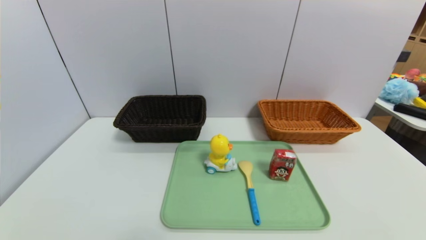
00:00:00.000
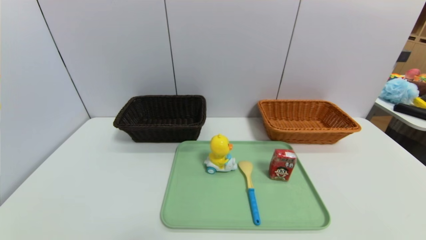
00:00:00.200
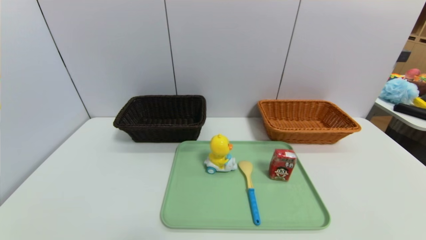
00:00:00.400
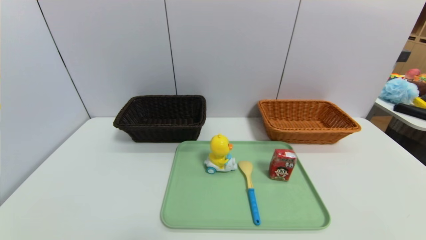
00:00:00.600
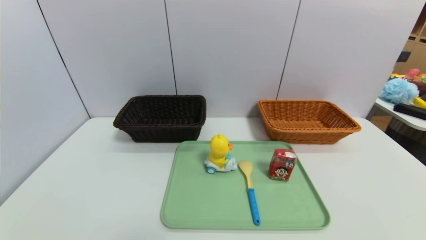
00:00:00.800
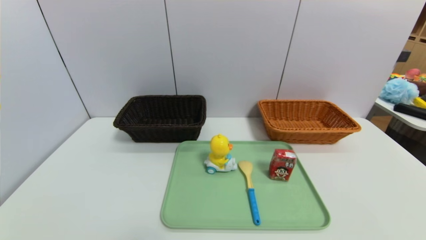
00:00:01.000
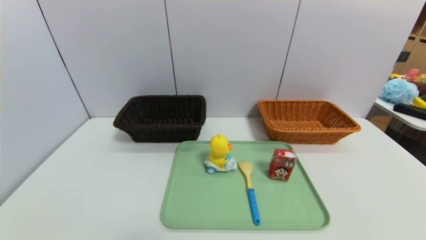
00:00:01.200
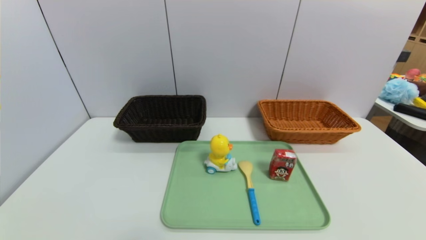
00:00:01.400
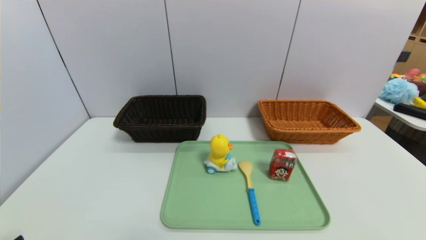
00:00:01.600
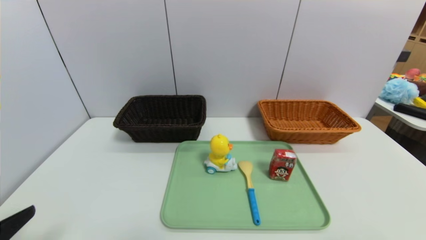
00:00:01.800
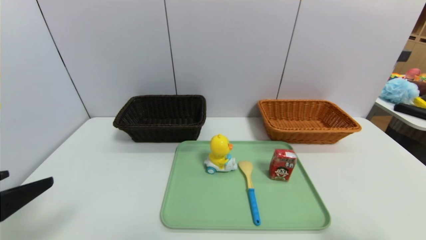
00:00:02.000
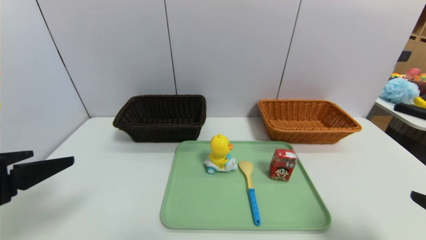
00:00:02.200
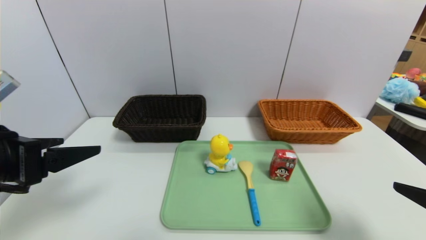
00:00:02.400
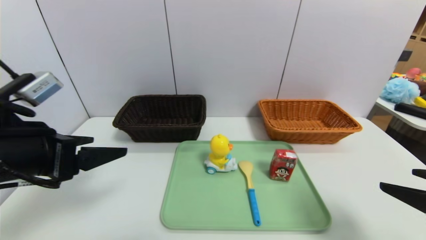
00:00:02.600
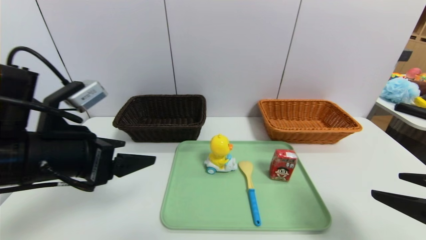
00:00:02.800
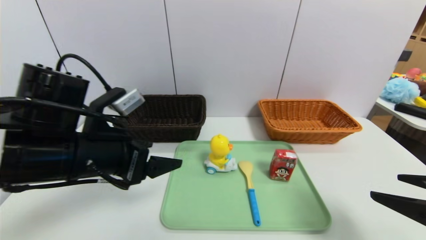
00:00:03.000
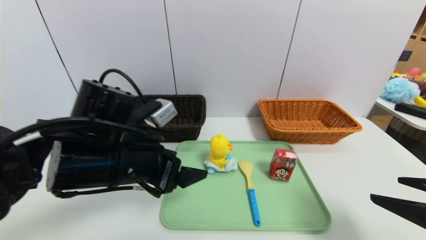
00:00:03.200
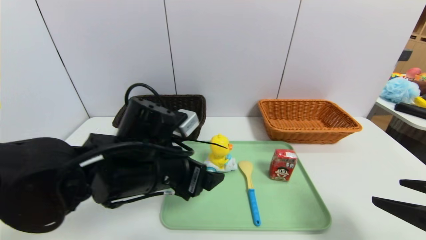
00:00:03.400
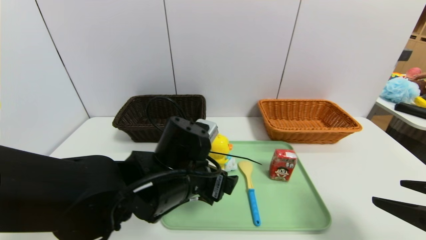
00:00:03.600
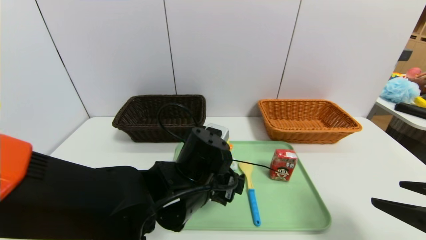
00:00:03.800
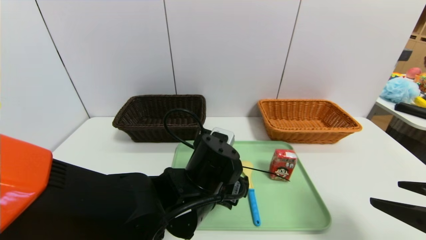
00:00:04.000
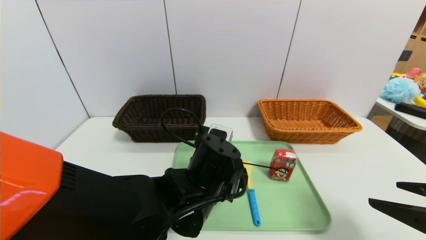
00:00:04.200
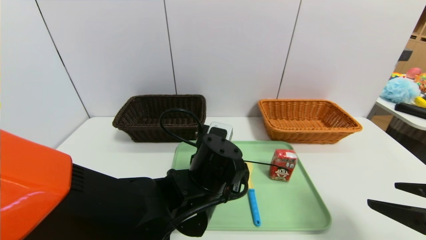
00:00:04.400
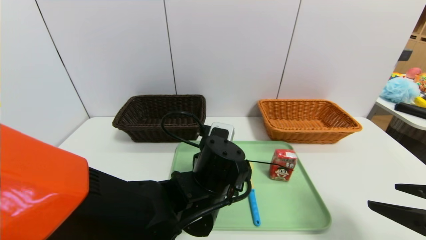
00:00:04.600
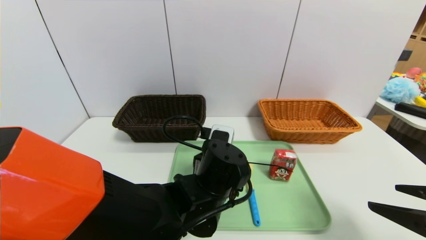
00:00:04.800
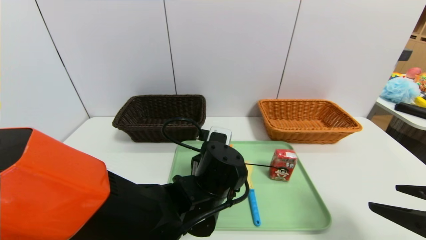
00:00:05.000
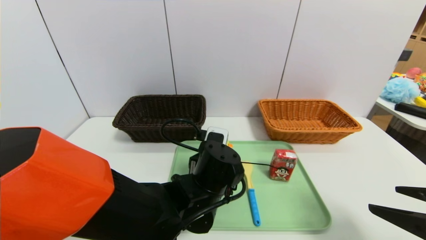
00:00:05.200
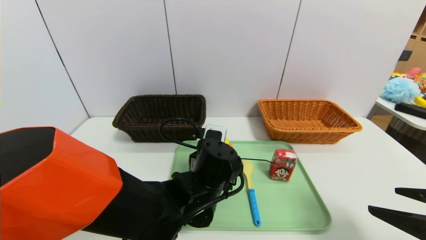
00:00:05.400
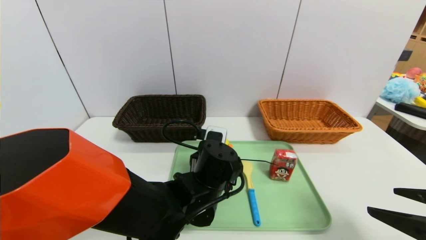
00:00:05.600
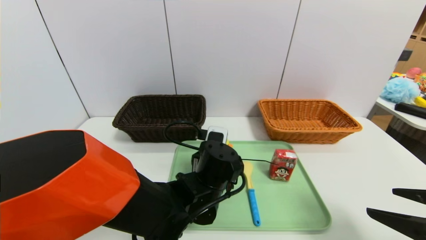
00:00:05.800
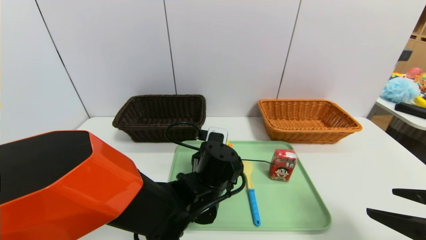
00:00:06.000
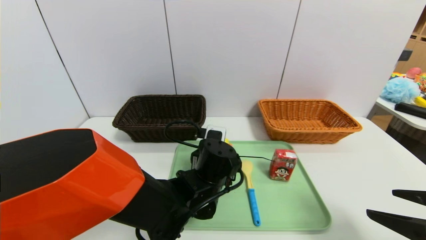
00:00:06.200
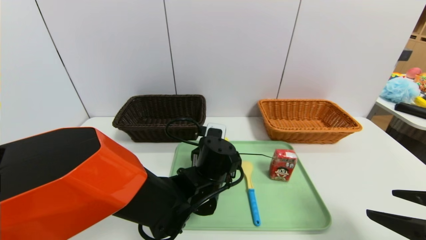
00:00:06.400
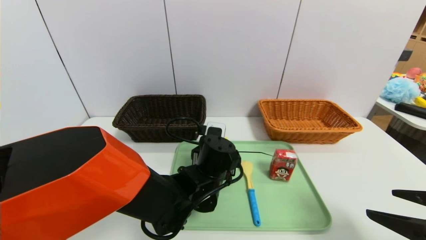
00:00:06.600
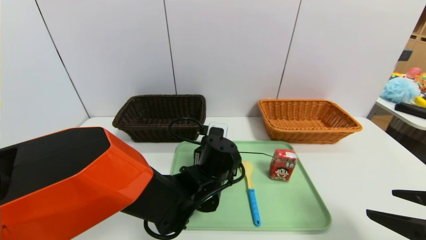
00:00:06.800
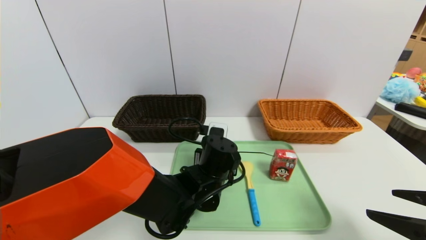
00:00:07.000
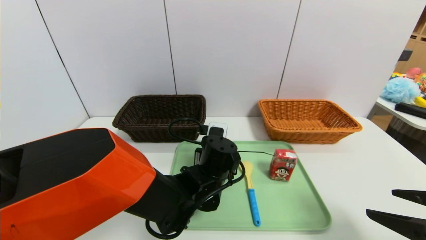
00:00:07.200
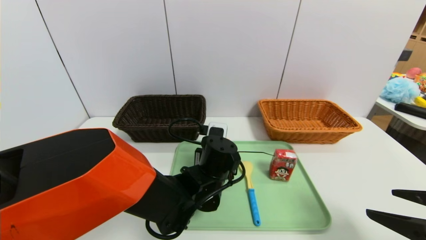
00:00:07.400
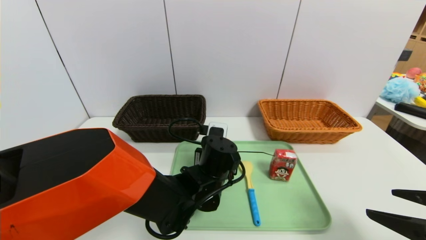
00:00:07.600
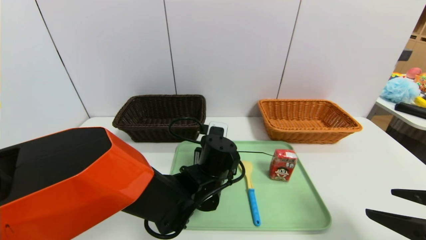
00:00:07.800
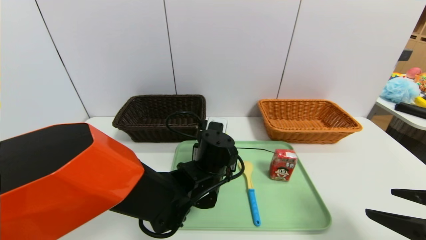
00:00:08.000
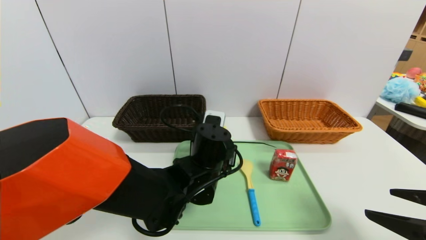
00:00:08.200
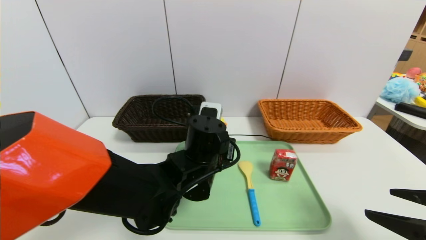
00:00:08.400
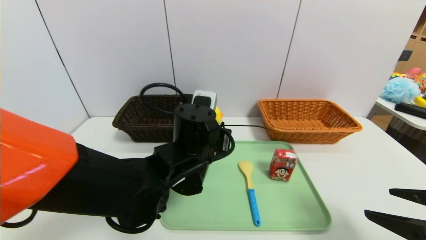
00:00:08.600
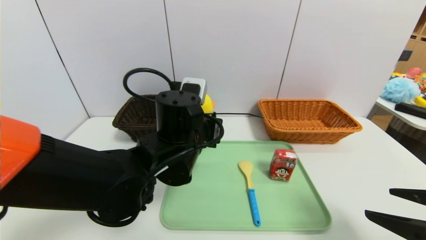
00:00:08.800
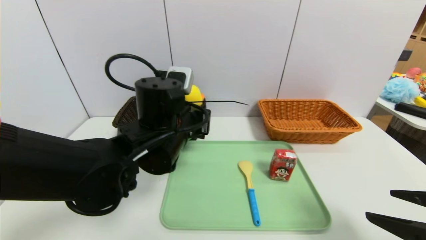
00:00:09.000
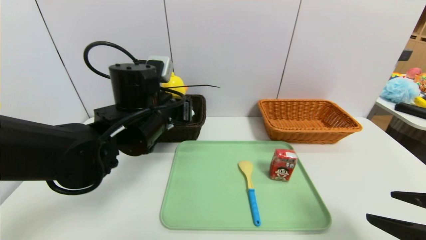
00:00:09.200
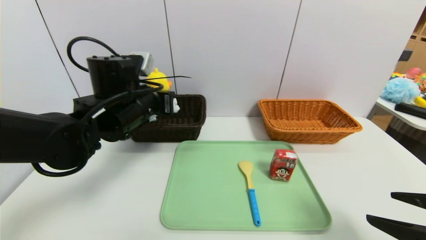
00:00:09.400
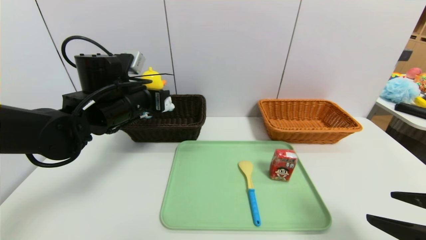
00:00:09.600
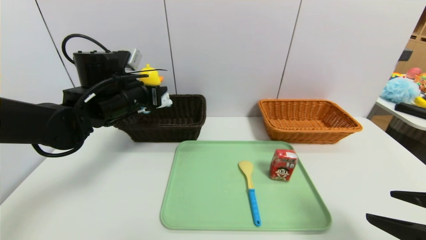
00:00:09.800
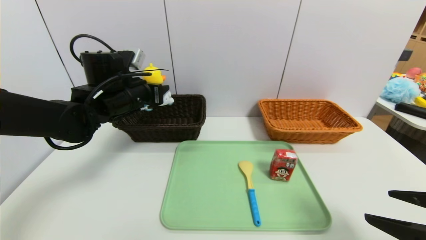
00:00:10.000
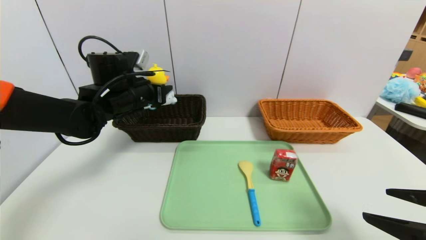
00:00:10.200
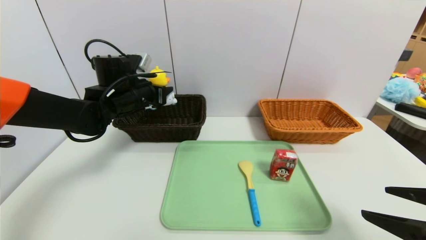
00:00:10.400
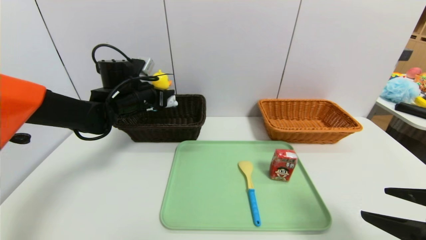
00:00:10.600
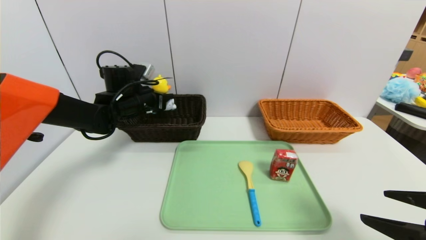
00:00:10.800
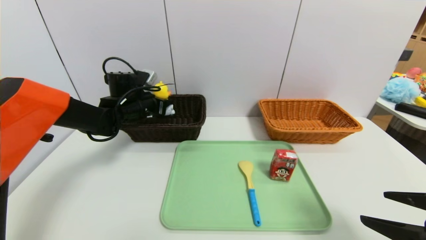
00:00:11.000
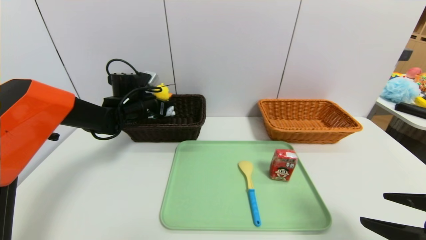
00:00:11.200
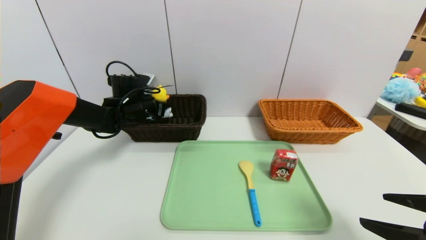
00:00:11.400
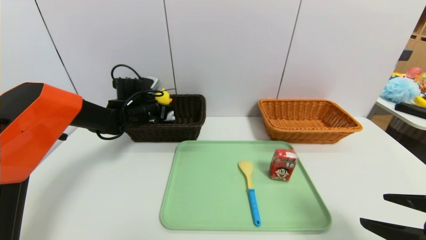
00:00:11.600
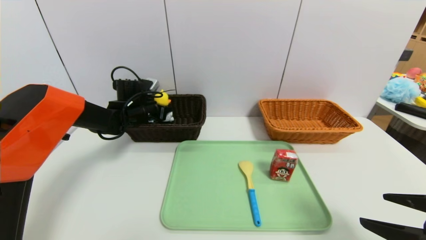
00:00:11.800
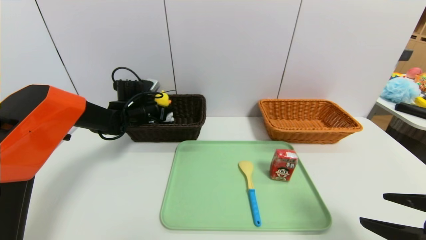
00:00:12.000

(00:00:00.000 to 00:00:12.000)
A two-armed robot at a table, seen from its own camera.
Task of the whole recording: place the food in the right basket with the right gripper, and place the non food items in the left basket with the left gripper.
00:00:01.600 - 00:00:03.000: The left gripper is displaced forward and to the right by approximately 25 cm, while the right gripper shifts about 10 cm forward.
00:00:03.000 - 00:00:04.400: The left gripper goes some 20 cm to the right and downward.
00:00:04.400 - 00:00:06.000: The left gripper moves approximately 5 cm.
00:00:06.000 - 00:00:07.600: The left gripper closes up.
00:00:07.600 - 00:00:09.000: The left gripper travels upward and to the left by about 15 cm.
00:00:09.000 - 00:00:10.400: The left gripper heads forward and to the left, covering roughly 20 cm.
00:00:10.400 - 00:00:12.000: The left gripper travels downward and forward by roughly 10 cm.

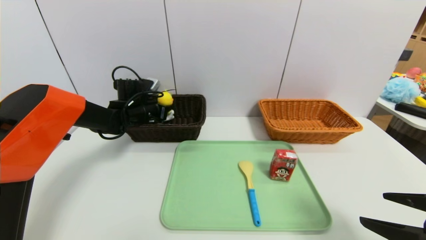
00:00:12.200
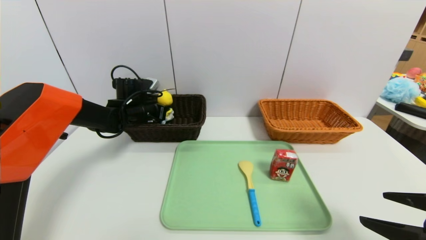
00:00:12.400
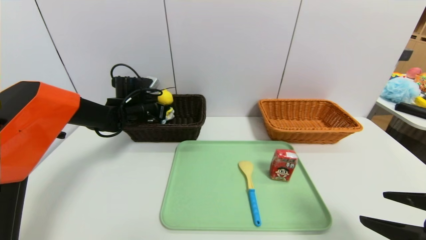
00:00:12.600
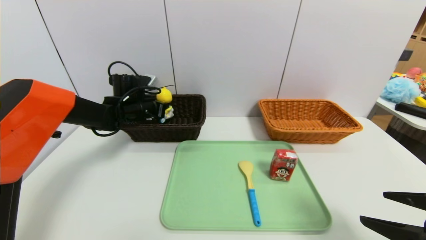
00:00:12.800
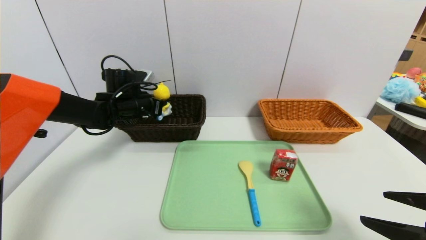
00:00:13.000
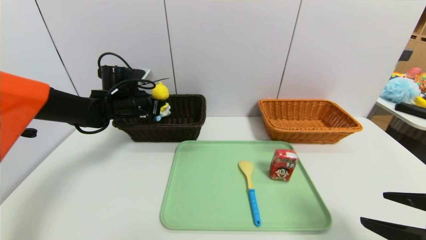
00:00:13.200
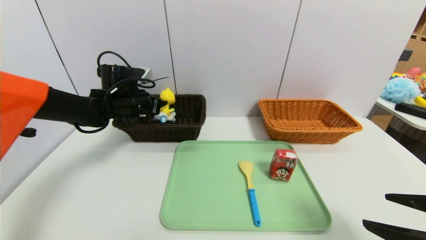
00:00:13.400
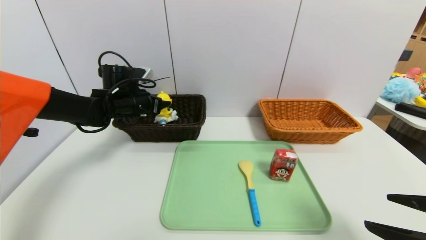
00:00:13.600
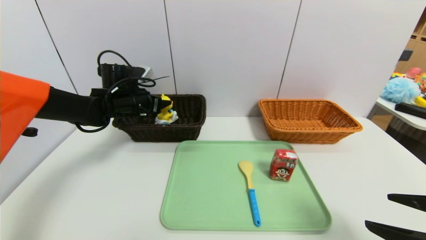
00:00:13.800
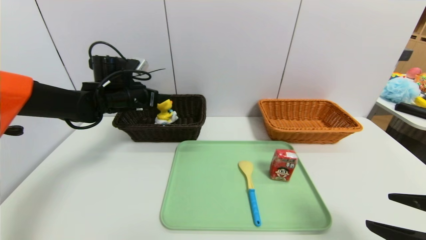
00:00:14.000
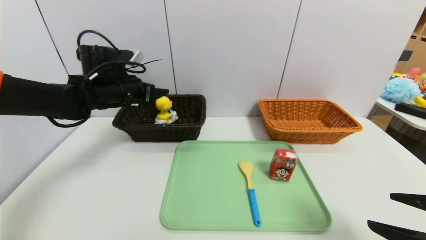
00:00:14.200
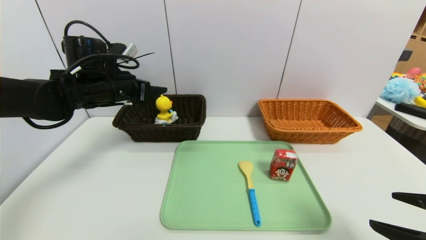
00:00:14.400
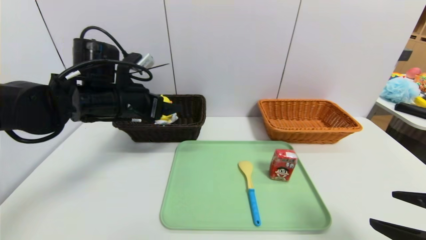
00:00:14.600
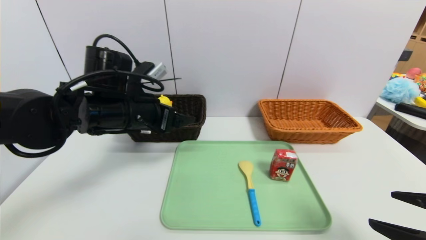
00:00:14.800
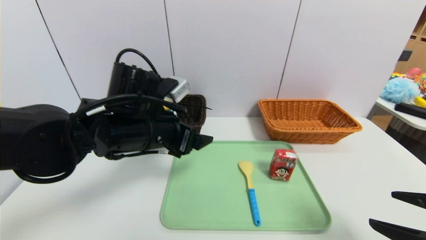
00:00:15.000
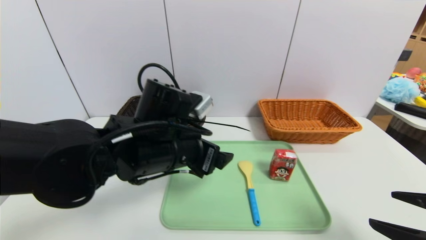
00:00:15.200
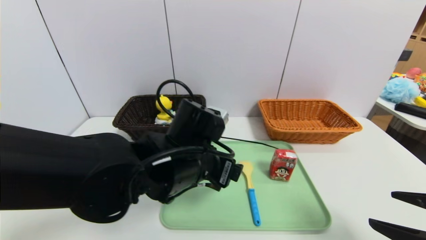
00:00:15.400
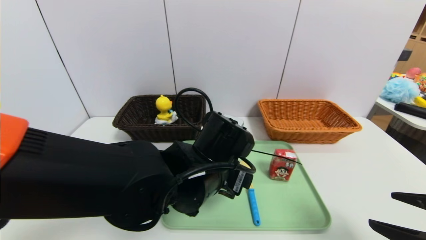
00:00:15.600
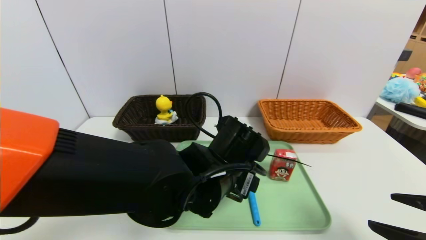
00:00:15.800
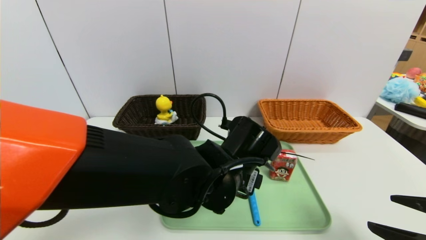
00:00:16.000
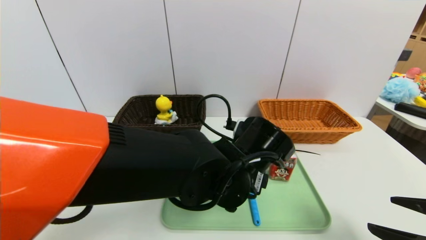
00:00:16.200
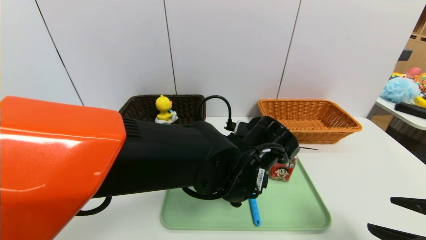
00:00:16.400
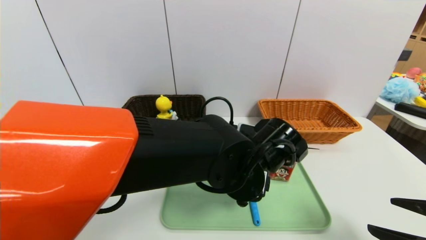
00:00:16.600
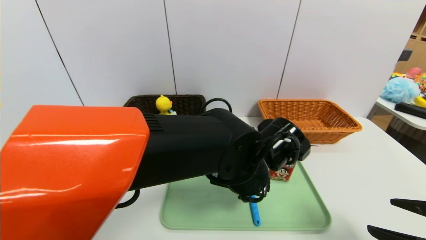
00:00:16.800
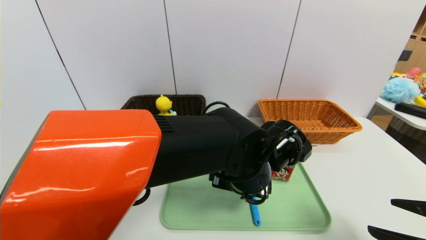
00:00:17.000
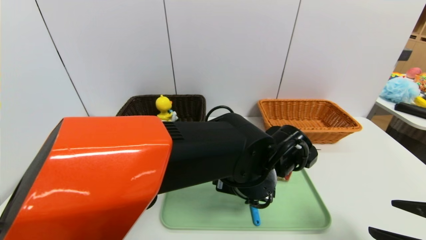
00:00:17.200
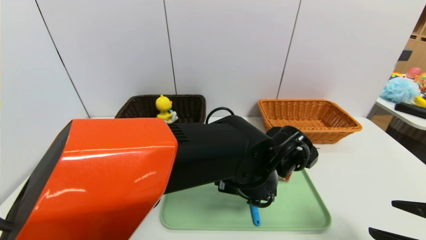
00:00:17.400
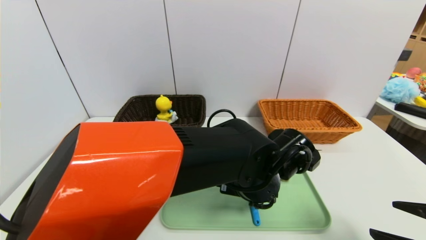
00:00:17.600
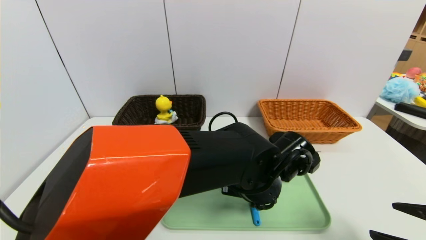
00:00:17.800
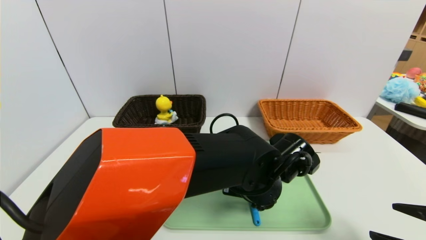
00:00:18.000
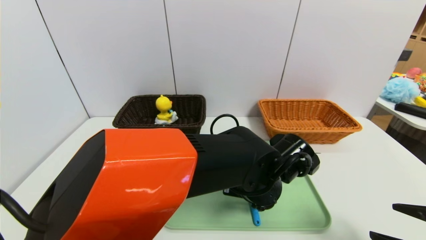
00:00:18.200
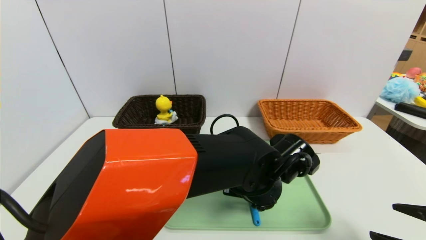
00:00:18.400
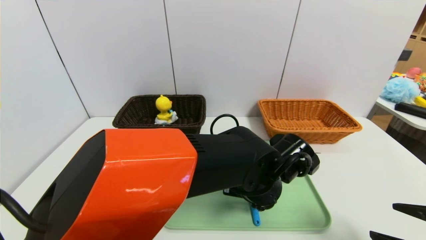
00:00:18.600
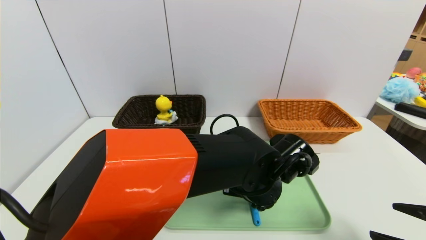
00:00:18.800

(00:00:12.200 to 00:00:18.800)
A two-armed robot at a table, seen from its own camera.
Task of the whole recording: place the food in the right basket with the right gripper, and place the non food items in the left basket with the left gripper.
00:00:12.200 - 00:00:13.800: The left gripper goes about 5 cm upward, and opens its fingers.
00:00:13.800 - 00:00:15.400: The left gripper shifts approximately 30 cm backward and to the right.
00:00:15.400 - 00:00:17.200: The left gripper travels to the right by about 10 cm.
00:00:17.200 - 00:00:18.800: The left gripper closes.
